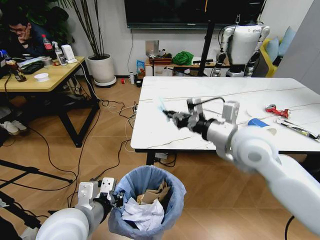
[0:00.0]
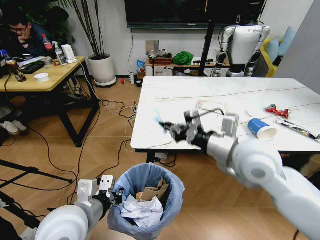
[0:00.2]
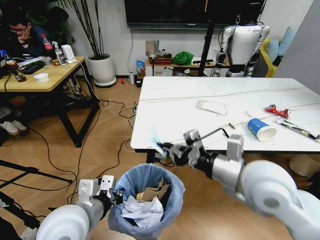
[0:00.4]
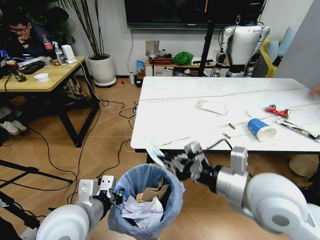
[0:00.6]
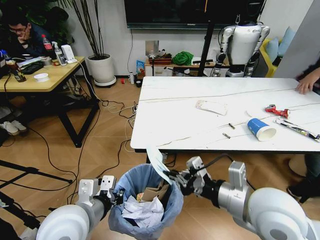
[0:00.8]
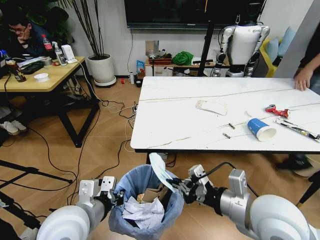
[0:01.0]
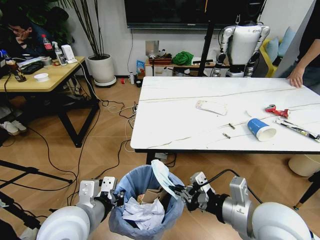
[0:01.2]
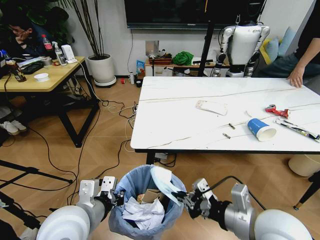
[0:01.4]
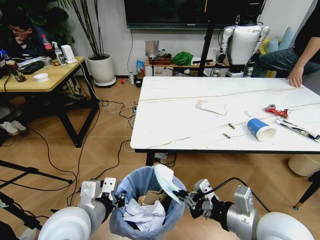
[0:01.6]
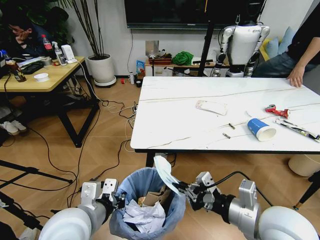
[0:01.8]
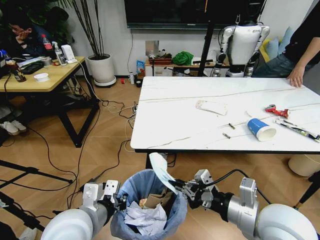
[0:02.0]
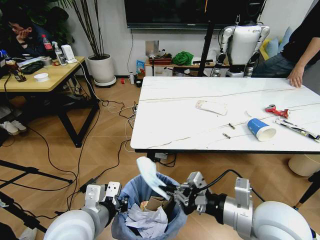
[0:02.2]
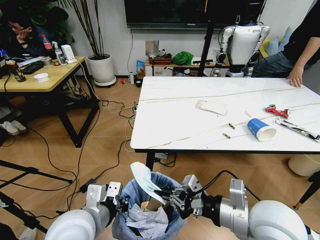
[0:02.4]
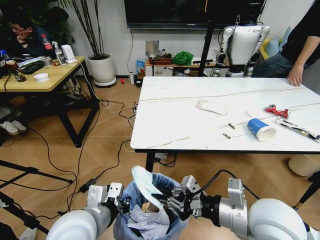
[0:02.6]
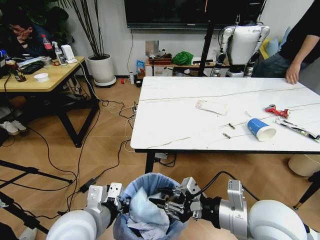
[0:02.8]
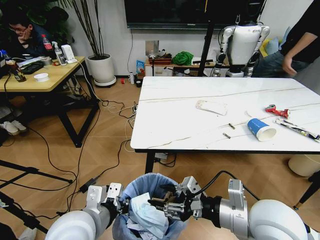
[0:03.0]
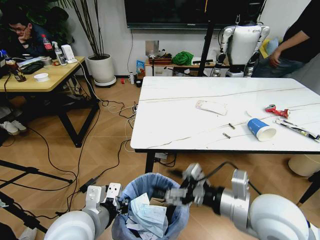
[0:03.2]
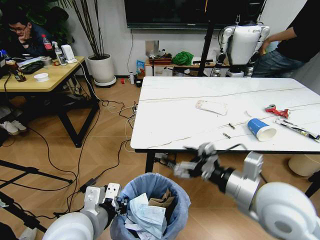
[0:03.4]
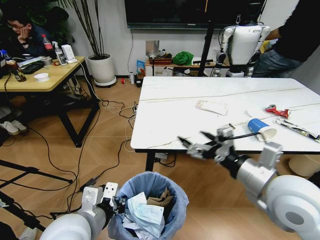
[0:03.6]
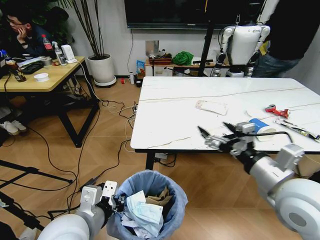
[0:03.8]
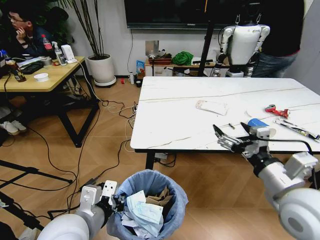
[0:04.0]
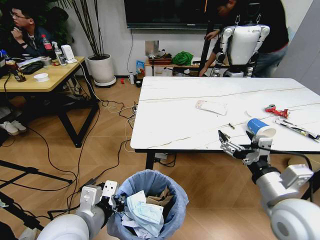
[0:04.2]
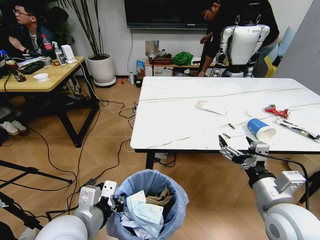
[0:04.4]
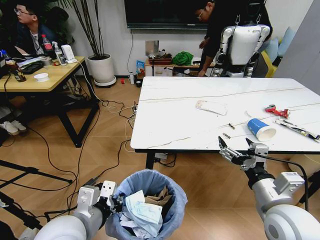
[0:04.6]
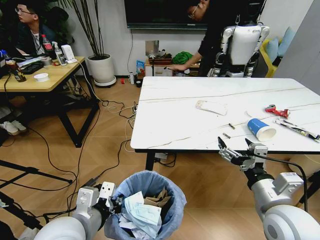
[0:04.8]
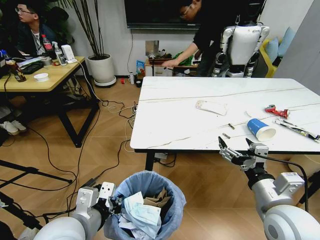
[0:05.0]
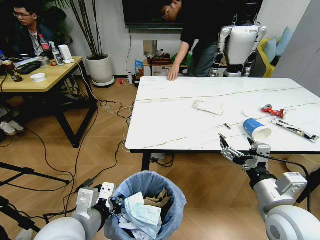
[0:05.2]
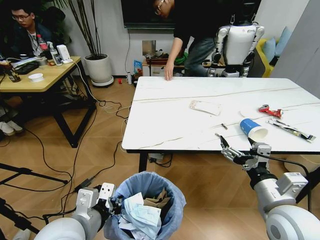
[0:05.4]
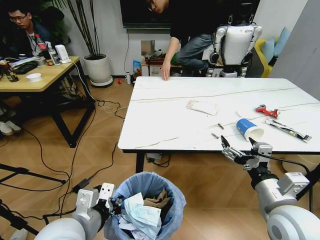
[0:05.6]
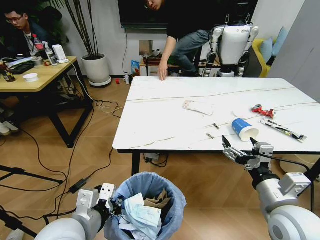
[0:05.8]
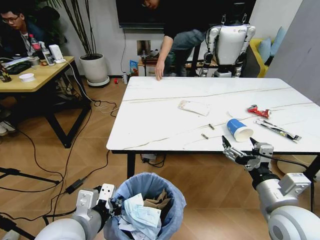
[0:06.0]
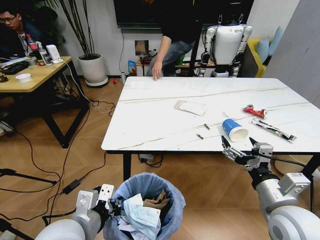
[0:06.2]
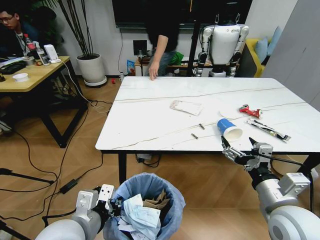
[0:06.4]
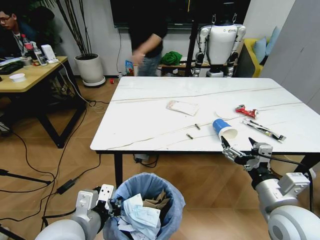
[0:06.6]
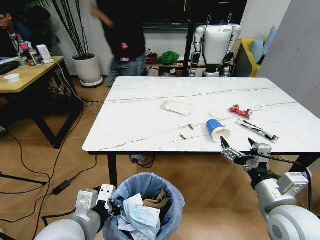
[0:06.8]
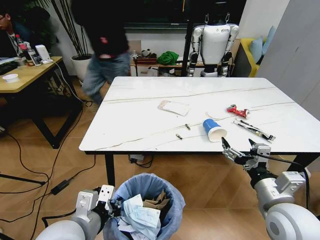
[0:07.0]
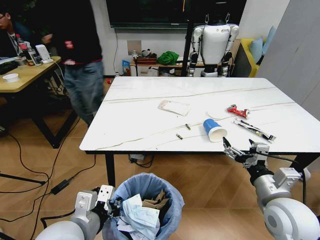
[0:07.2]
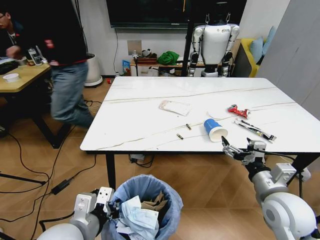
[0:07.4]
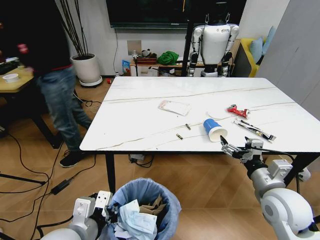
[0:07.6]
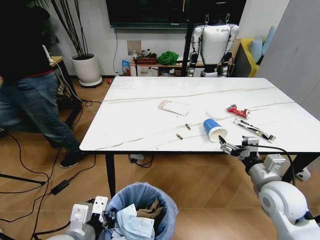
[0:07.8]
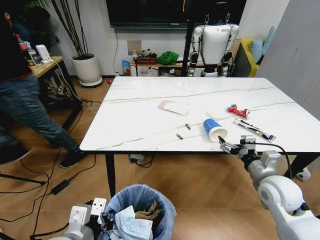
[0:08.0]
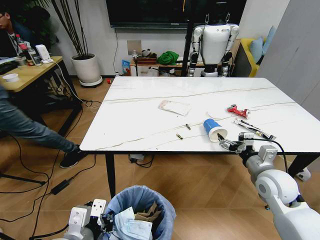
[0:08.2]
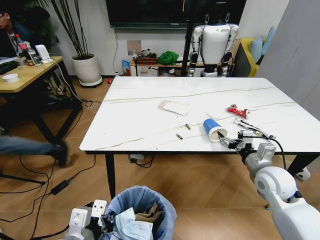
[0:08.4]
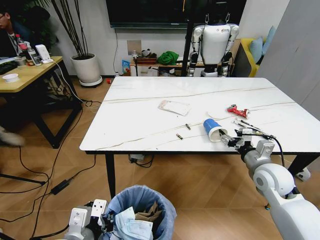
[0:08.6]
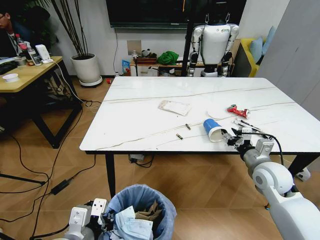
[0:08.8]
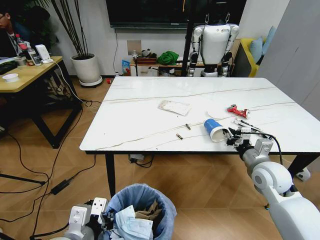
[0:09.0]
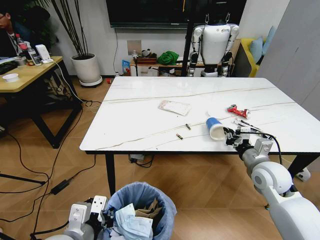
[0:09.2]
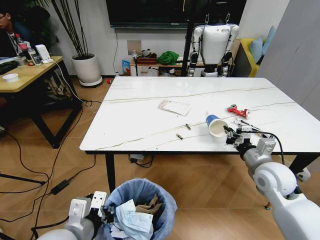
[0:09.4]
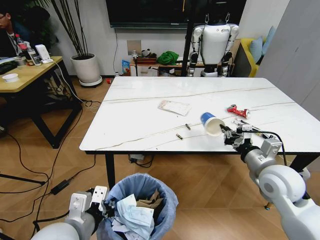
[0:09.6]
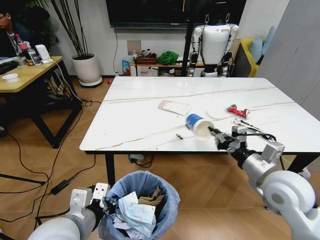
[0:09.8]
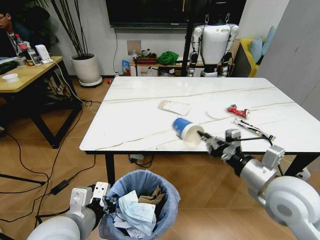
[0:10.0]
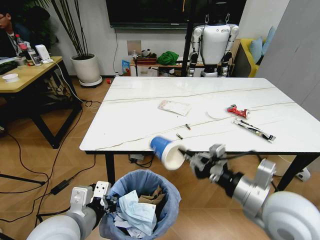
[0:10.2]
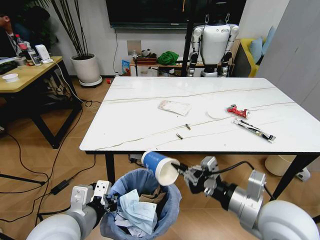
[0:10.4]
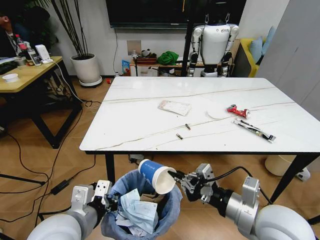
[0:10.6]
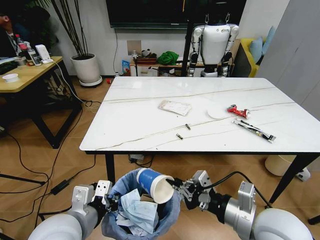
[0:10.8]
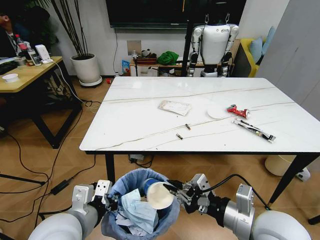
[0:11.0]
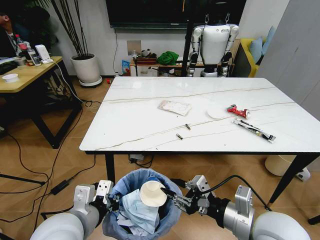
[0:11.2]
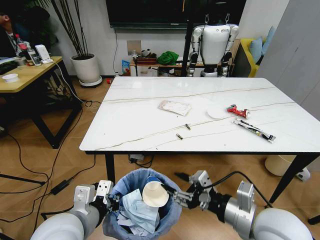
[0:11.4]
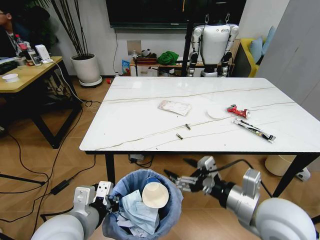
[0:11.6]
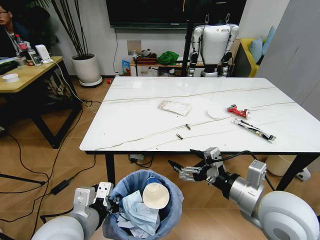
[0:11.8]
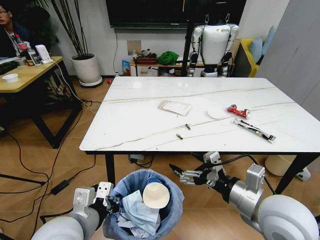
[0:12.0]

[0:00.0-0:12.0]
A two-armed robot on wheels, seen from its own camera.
Task of the whole recording: Pick up the trash bin and place the trash from the table into it.
0:00.0 to 0:01.6: The right gripper shifts some 20 cm backward and downward.
0:01.6 to 0:03.0: The right gripper opens its fingers.
0:03.0 to 0:04.4: The right gripper shifts about 5 cm to the right, and opens up.
0:06.0 to 0:07.6: The right gripper shifts roughly 5 cm forward.
0:07.6 to 0:09.0: The right gripper moves forward, approximately 10 cm, and closes its fingers.
0:09.0 to 0:10.4: The right gripper heads backward, to the left and upward, covering roughly 20 cm.
0:10.4 to 0:12.0: The right gripper opens.

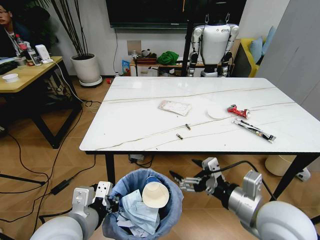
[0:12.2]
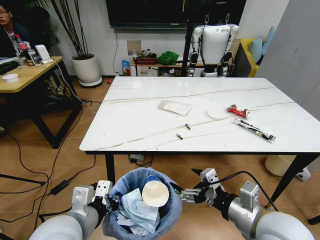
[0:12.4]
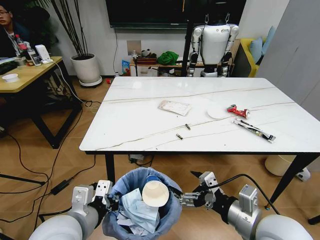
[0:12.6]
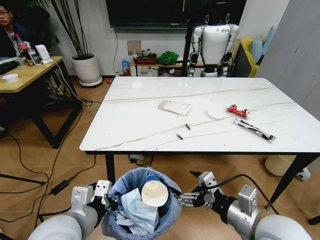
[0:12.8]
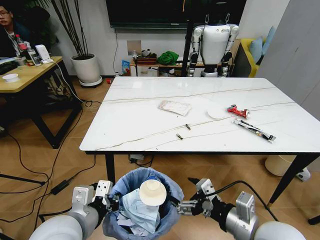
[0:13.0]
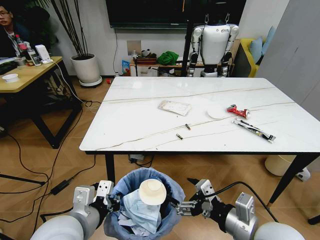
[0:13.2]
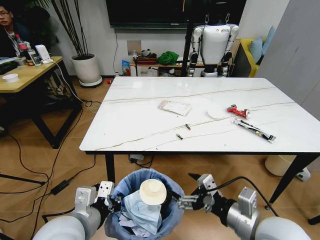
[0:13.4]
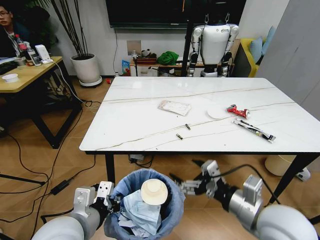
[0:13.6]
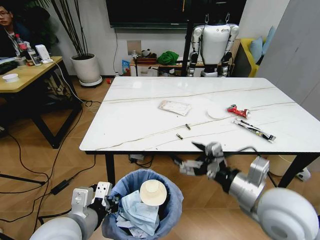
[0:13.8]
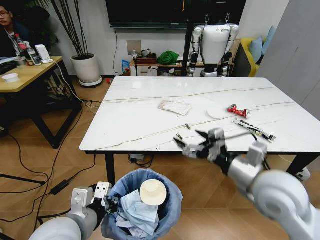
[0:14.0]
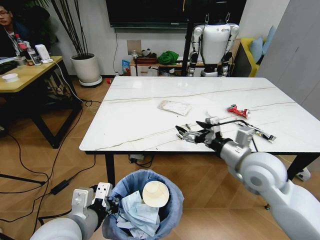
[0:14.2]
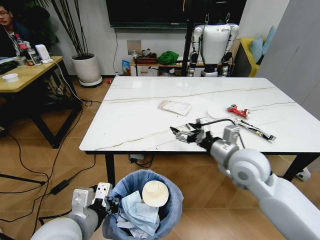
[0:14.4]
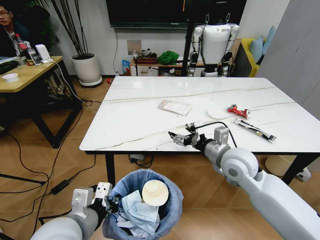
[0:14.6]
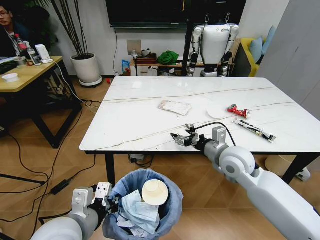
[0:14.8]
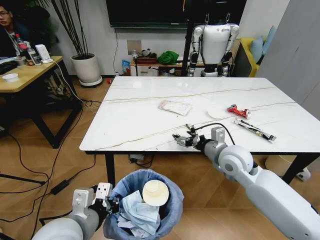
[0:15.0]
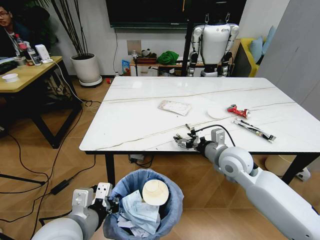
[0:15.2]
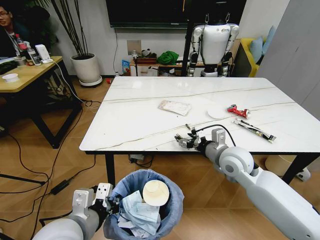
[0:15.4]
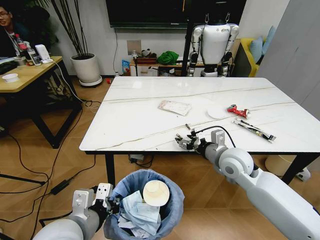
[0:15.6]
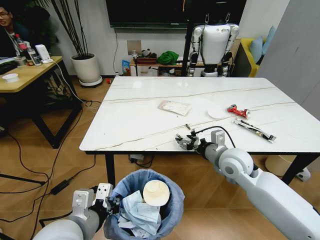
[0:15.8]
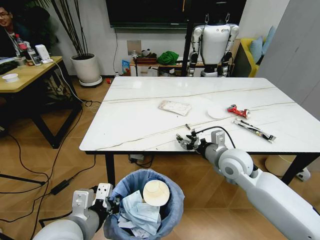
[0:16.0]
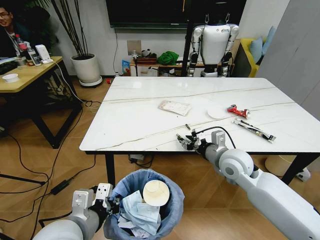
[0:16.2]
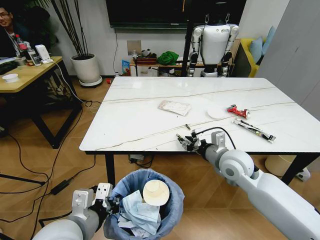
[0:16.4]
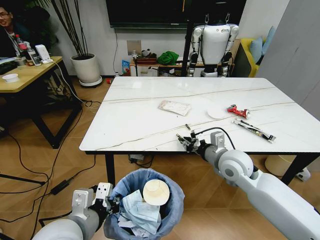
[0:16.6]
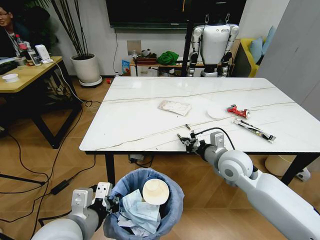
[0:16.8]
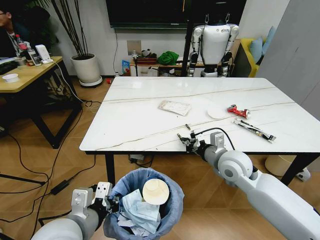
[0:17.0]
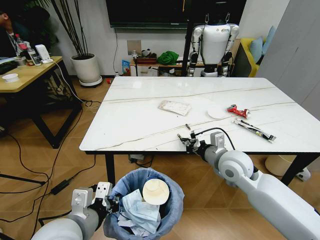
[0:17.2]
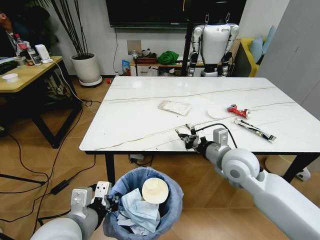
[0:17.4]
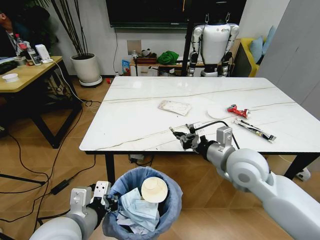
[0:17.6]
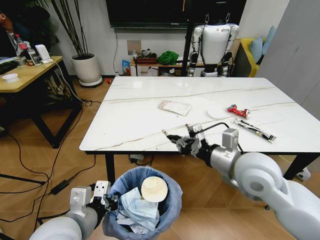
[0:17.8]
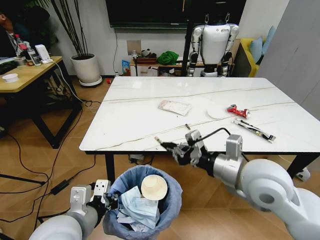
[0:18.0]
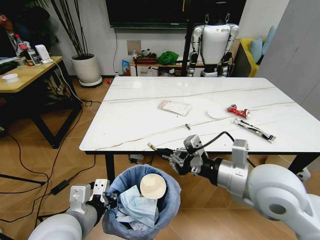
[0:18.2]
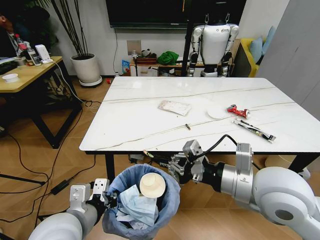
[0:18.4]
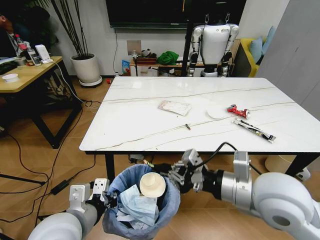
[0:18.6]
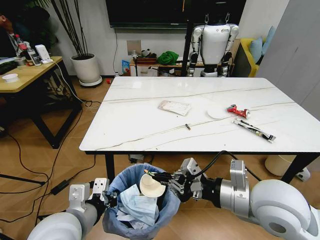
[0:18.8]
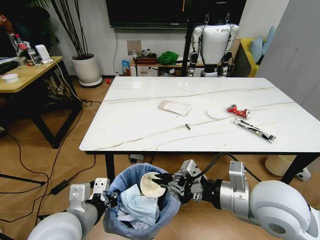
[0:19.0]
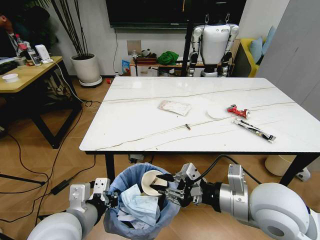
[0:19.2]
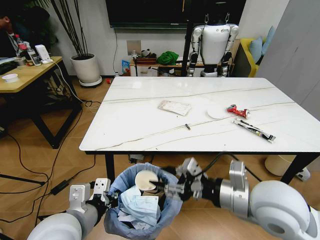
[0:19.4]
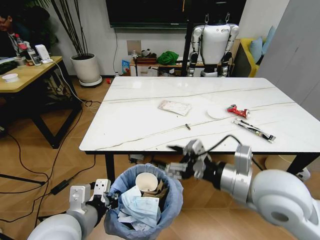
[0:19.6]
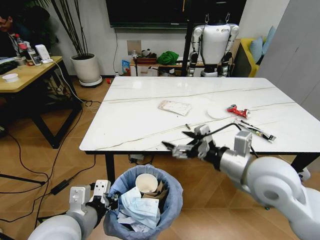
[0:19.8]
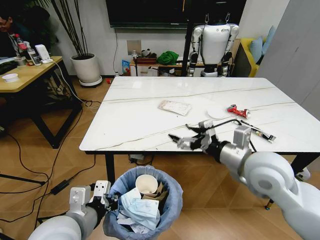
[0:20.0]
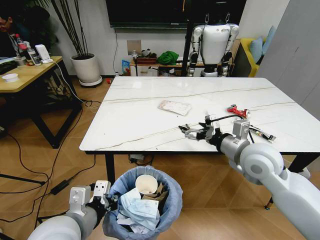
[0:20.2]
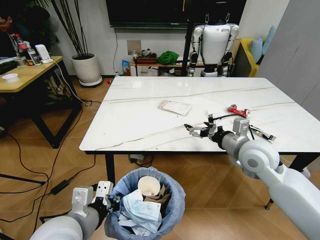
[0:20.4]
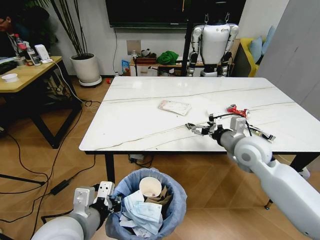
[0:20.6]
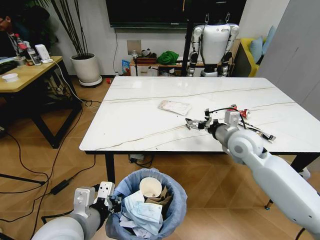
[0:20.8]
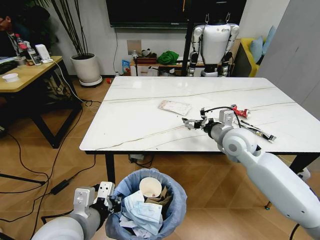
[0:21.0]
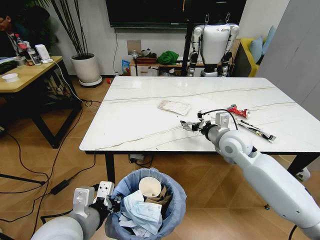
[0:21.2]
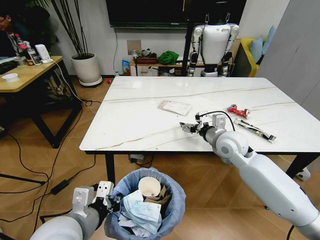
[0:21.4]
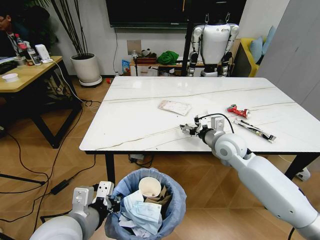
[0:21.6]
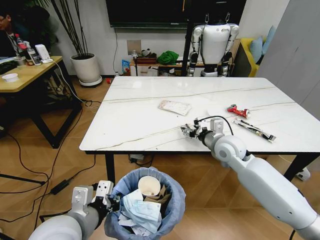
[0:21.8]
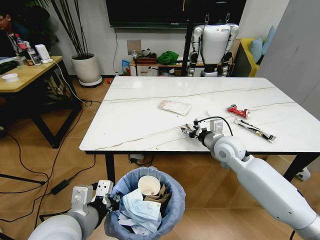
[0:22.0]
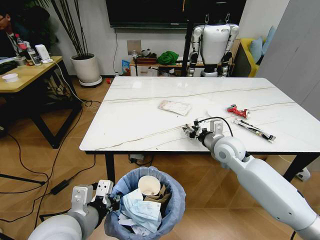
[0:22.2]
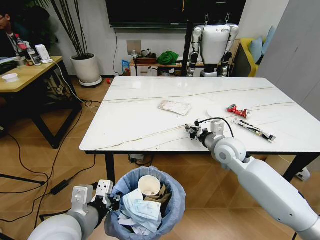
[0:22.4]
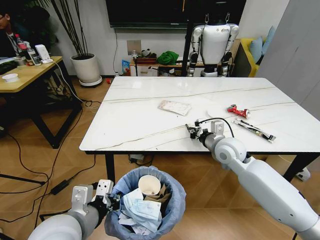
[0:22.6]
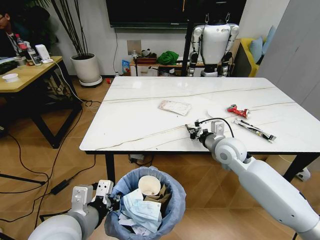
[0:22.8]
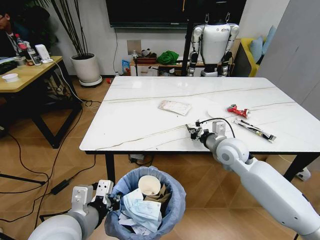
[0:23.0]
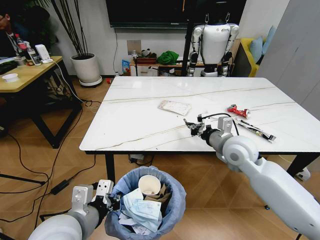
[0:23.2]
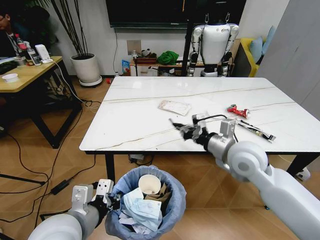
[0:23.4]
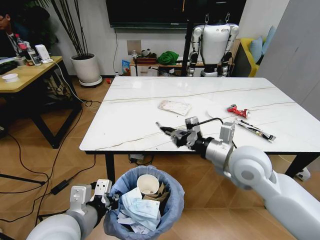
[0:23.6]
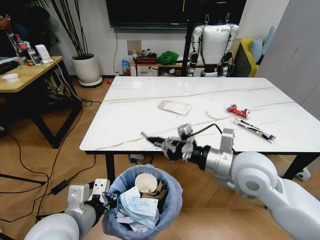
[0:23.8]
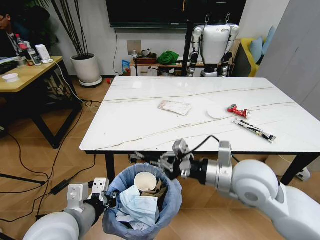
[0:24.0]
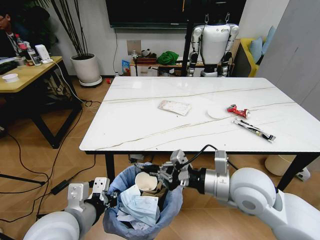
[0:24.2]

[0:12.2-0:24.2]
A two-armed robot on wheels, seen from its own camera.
Task of the whole recording: Pick up the trash bin and place the trash from the table into it.
0:12.2 to 0:13.8: The grippers make only small movements.
0:13.8 to 0:15.2: The right gripper shifts about 15 cm forward.
0:15.2 to 0:16.6: The right gripper closes up.
0:16.6 to 0:18.2: The right gripper goes about 15 cm backward and upward.
0:18.2 to 0:19.8: The right gripper opens up.
0:19.8 to 0:21.2: The right gripper is displaced forward and downward by roughly 15 cm.
0:21.2 to 0:22.6: The right gripper closes its fingers.
0:22.6 to 0:24.2: The right gripper is displaced backward and upward by about 15 cm.
